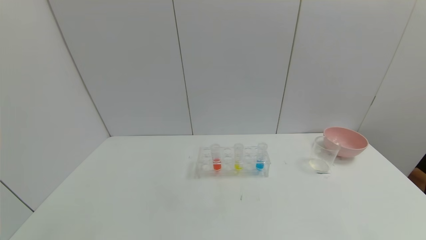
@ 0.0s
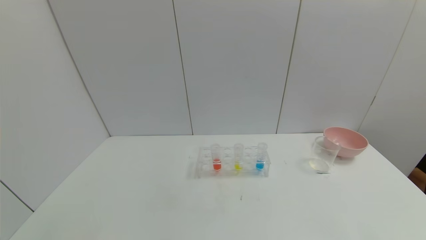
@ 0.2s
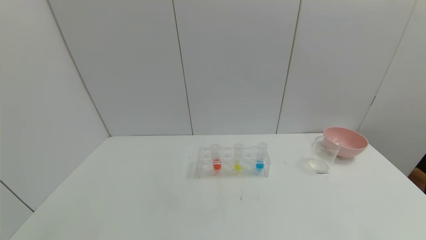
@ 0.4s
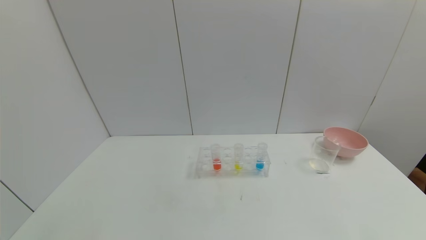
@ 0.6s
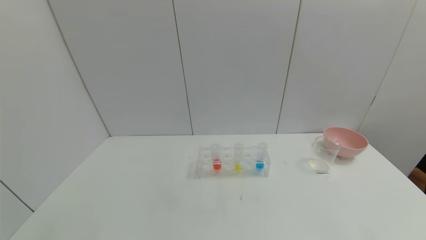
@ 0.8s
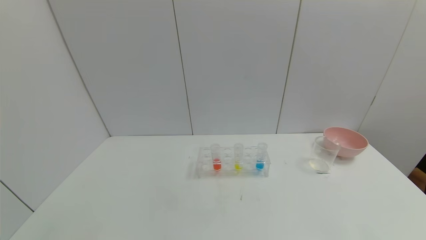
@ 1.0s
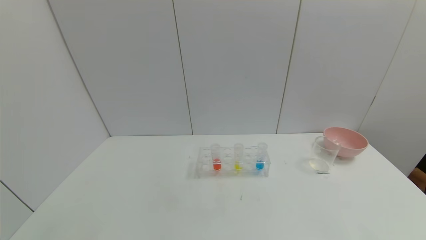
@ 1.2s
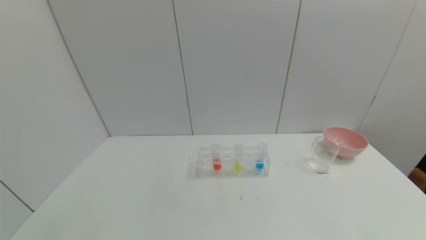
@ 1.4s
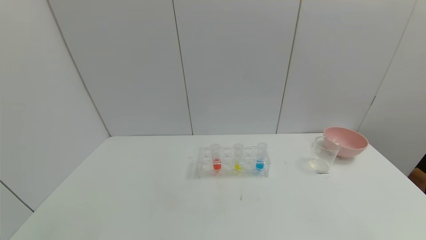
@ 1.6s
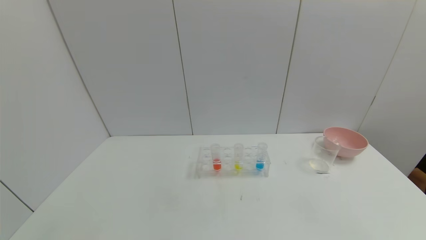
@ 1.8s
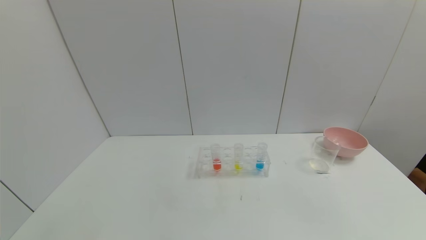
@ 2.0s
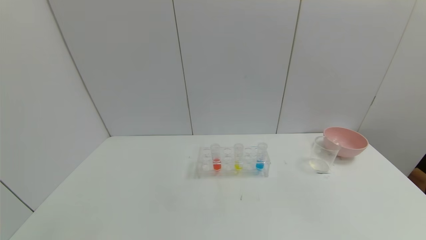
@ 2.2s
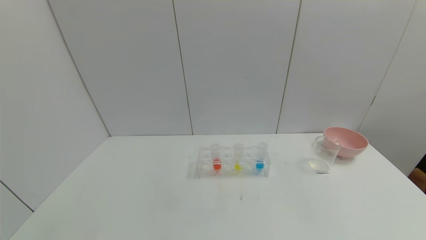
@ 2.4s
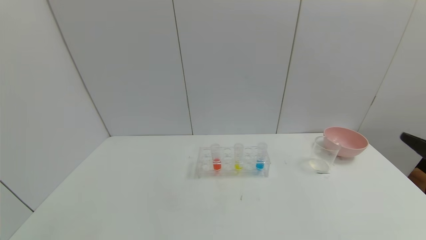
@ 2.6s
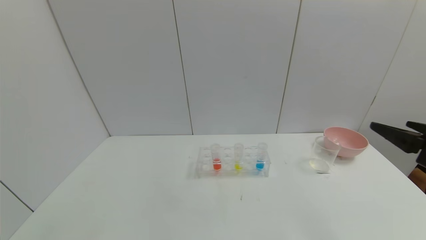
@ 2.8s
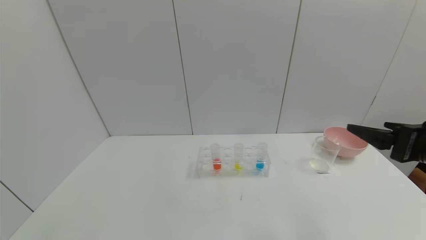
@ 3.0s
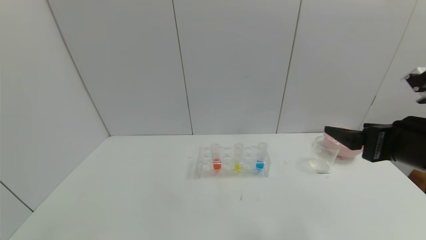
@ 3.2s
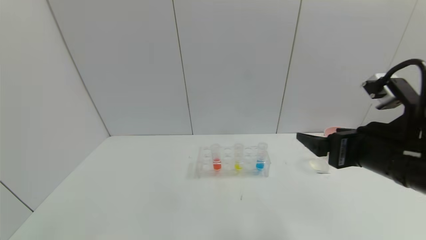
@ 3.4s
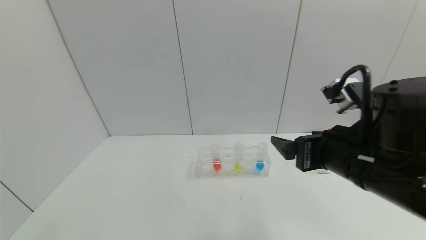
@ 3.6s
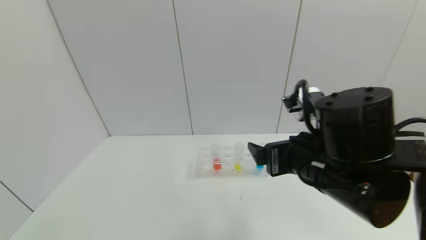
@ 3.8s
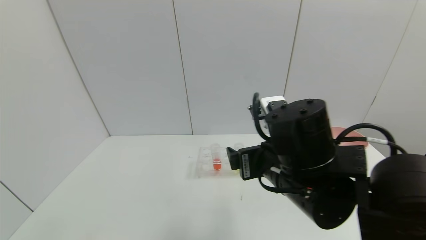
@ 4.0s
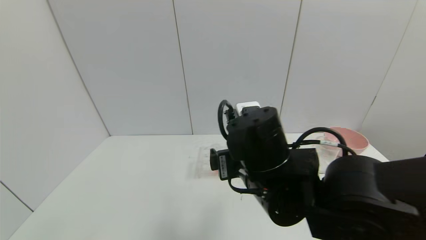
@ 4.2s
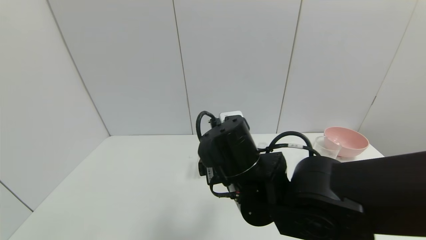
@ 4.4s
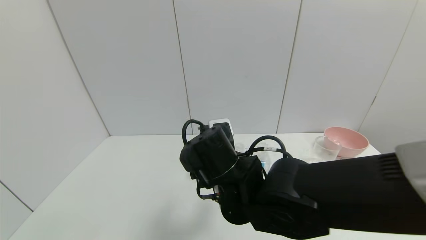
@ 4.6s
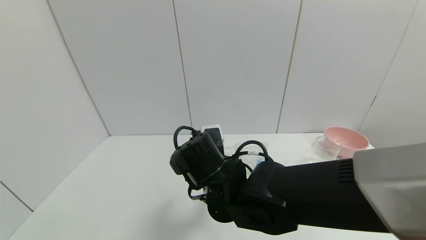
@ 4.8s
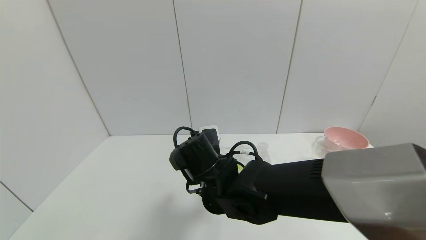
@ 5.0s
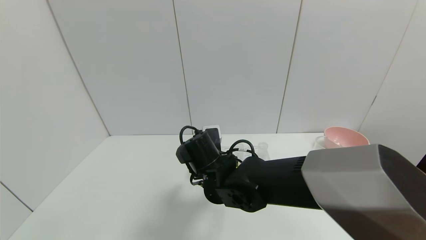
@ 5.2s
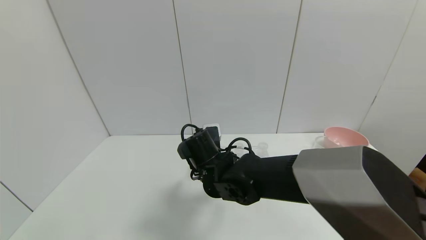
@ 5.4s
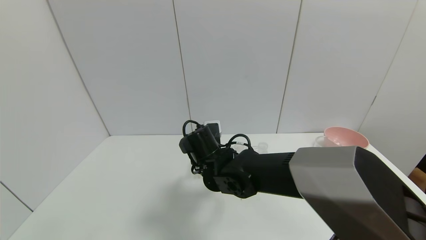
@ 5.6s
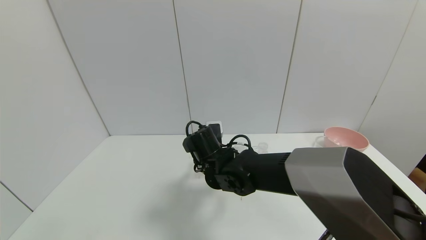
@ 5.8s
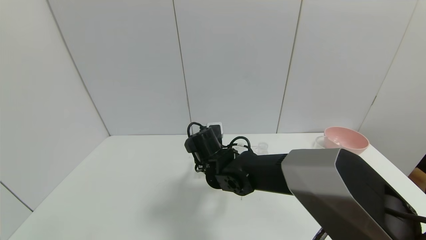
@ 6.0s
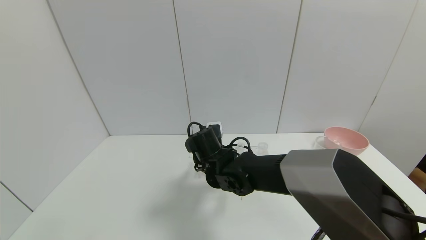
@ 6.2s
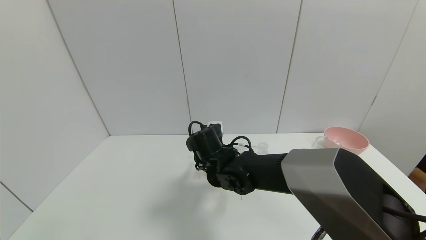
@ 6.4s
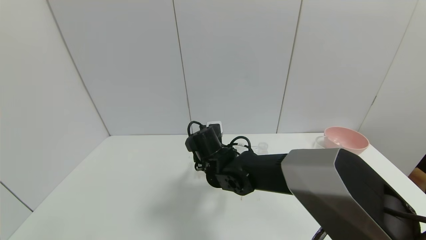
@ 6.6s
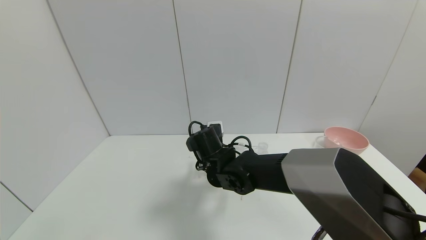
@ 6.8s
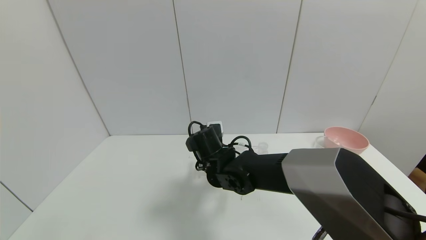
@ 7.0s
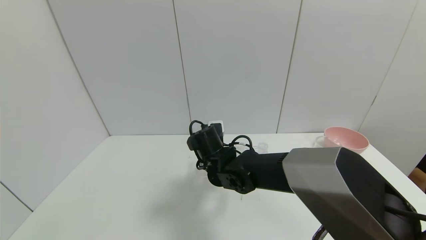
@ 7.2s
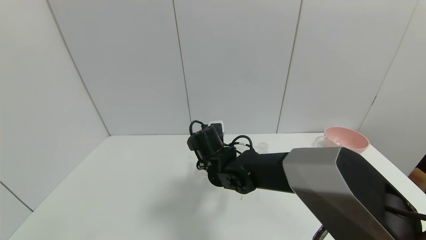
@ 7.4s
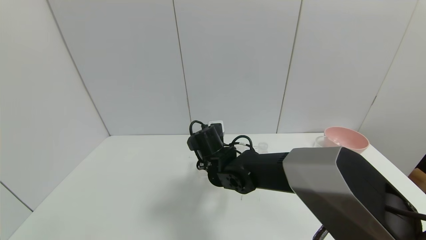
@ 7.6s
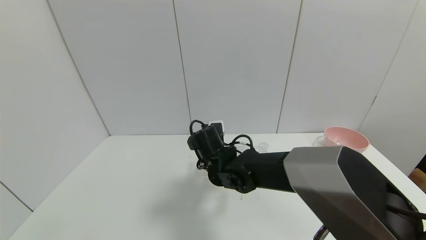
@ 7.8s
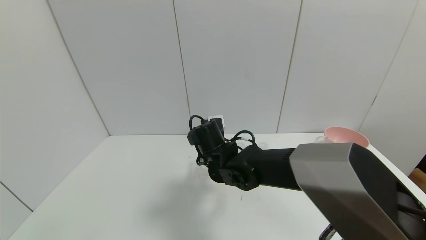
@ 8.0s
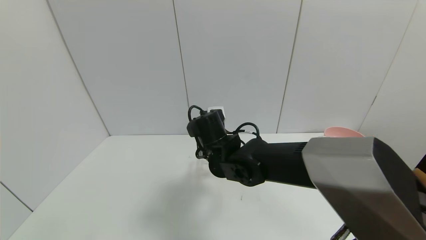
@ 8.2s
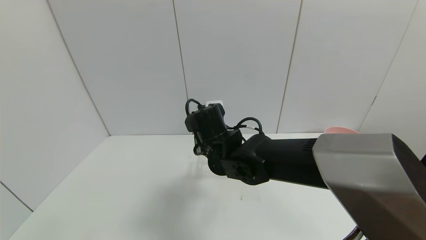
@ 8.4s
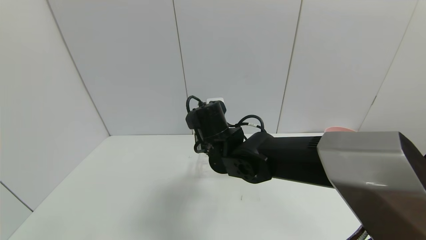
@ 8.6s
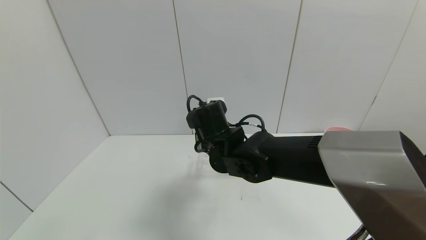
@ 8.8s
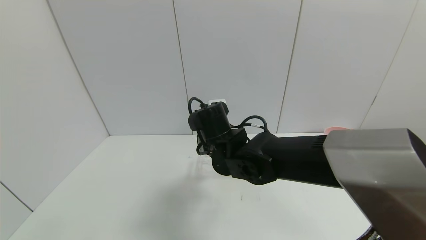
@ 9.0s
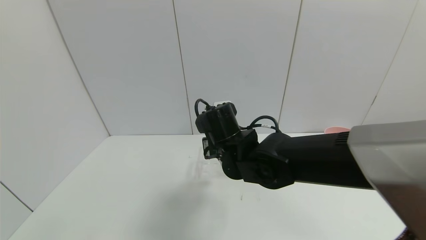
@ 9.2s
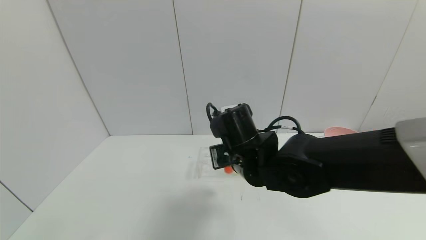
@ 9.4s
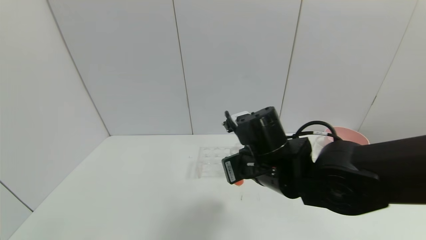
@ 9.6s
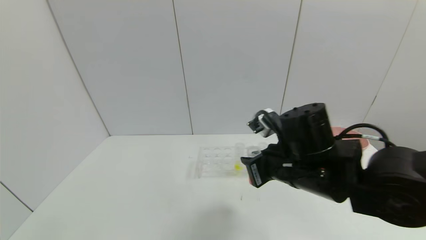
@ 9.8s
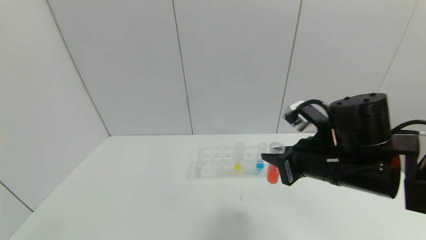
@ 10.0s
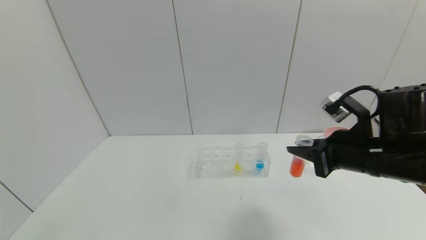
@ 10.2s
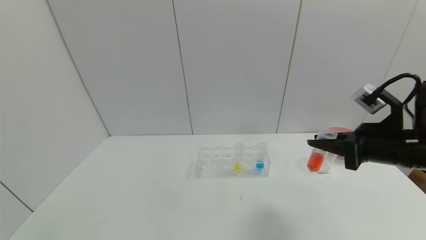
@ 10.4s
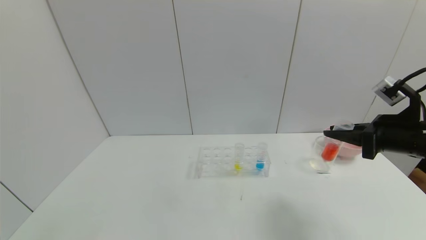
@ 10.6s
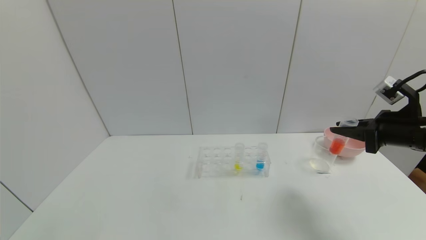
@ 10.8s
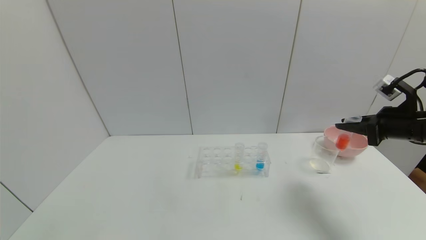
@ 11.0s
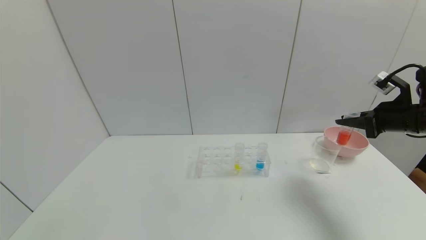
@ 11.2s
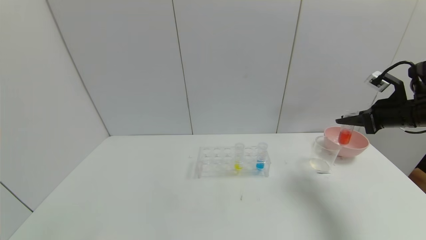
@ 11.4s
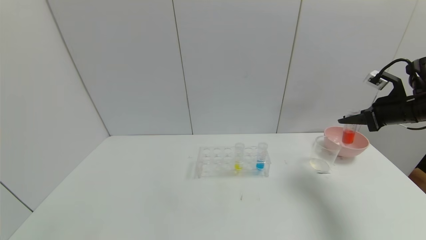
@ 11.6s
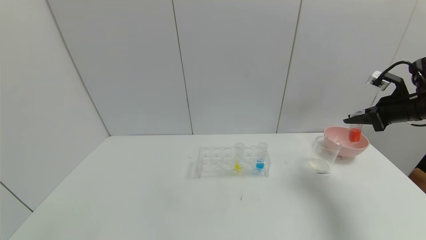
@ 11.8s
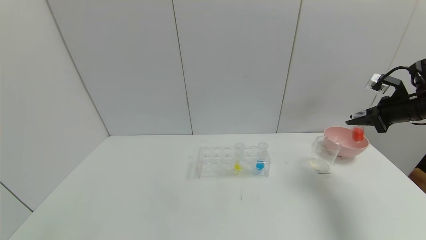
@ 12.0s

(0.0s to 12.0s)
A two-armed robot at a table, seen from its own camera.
Task of the whole recording: pick up the test tube with yellow pigment and the test tube with red pigment by grippers and pour them into the beaker.
Step, 0.0s - 7.8s: Grasp the red reagent with the right gripper.
1.6s - 3.0s: The right gripper heads forward and upward, covering about 25 cm.
3.0s - 4.4s: The right gripper travels to the left by approximately 30 cm.
4.4s - 6.0s: The right gripper heads forward and downward, covering approximately 15 cm.
6.0s - 7.6s: The right gripper closes up.
7.6s - 9.0s: The right gripper travels upward by about 5 cm.
9.0s - 10.4s: The right gripper travels to the right by about 30 cm.
10.4s - 12.0s: The right gripper heads to the right and forward, covering approximately 20 cm.

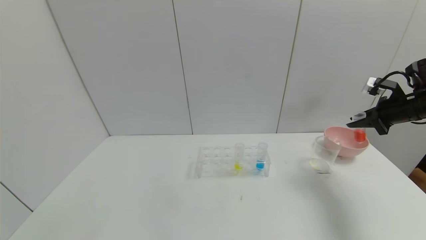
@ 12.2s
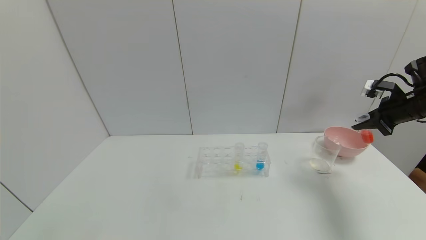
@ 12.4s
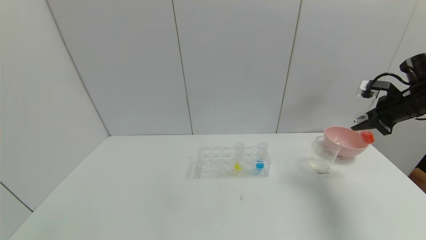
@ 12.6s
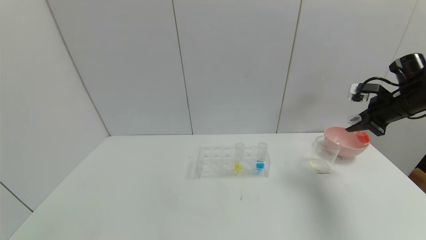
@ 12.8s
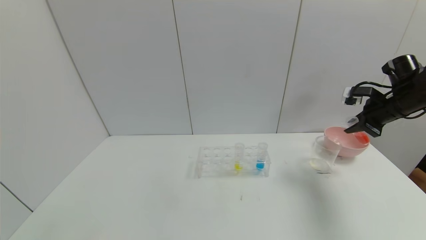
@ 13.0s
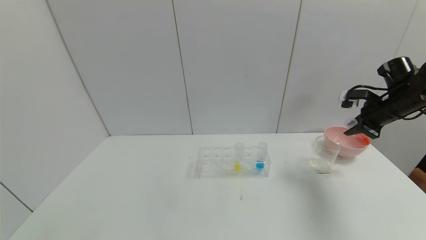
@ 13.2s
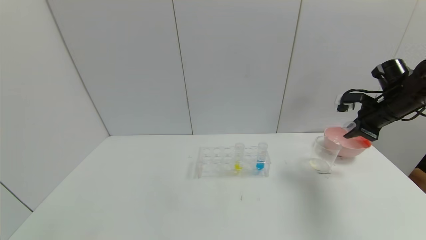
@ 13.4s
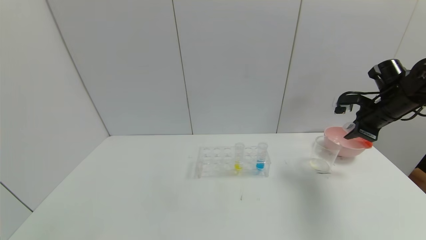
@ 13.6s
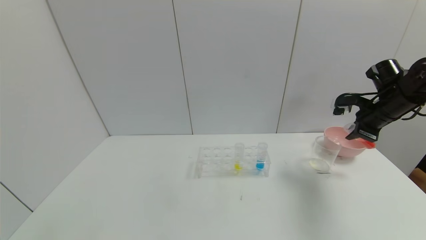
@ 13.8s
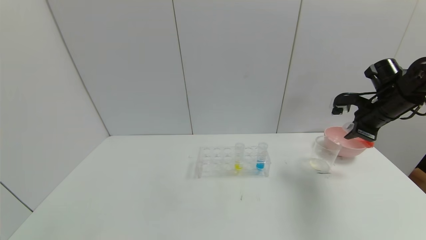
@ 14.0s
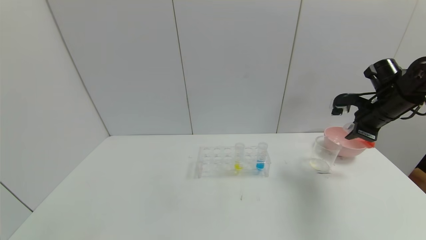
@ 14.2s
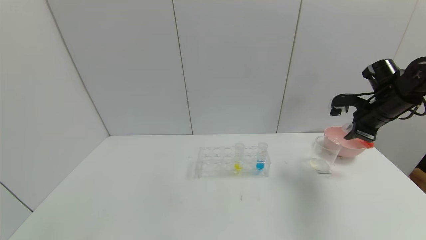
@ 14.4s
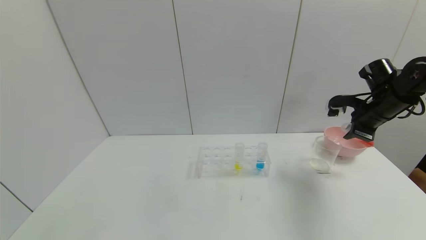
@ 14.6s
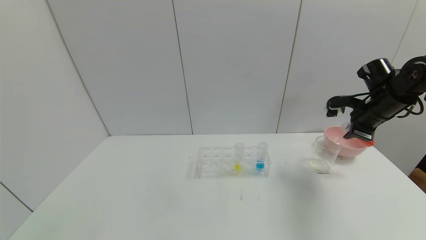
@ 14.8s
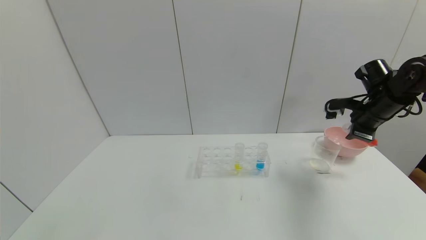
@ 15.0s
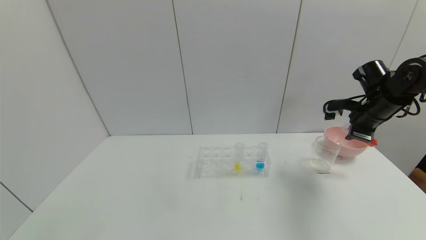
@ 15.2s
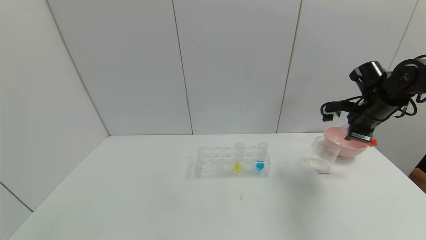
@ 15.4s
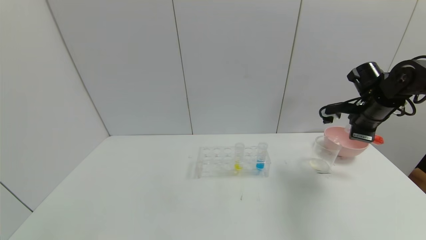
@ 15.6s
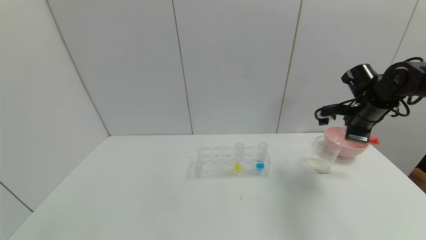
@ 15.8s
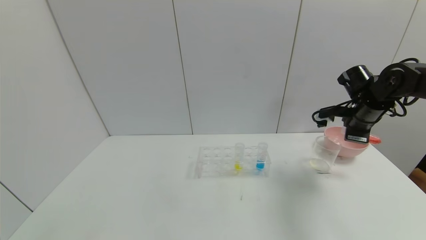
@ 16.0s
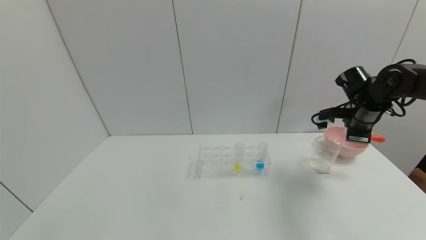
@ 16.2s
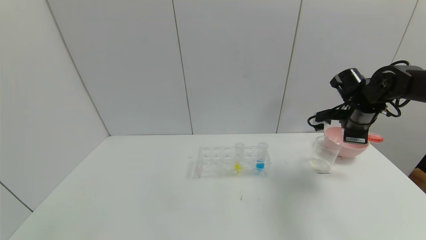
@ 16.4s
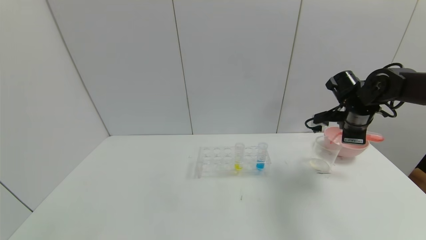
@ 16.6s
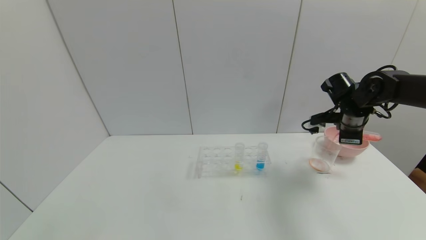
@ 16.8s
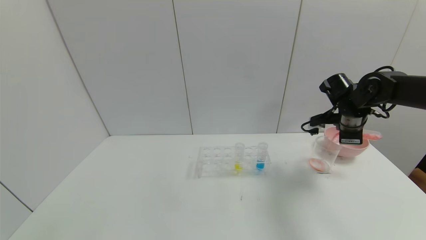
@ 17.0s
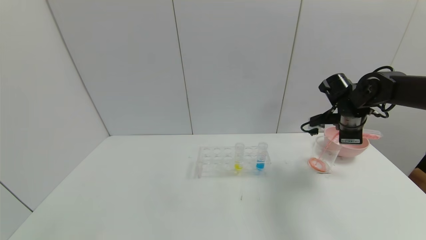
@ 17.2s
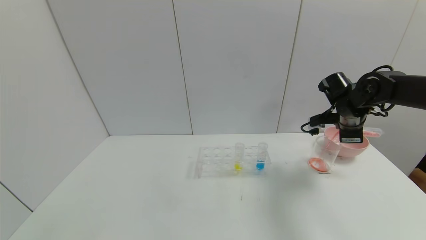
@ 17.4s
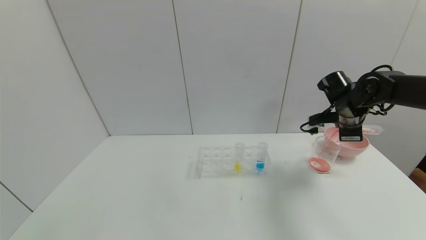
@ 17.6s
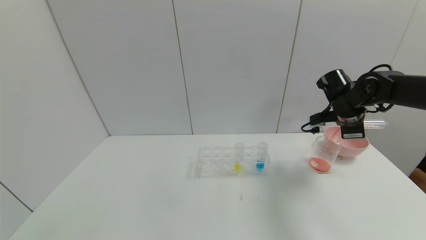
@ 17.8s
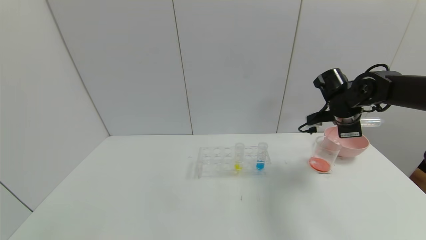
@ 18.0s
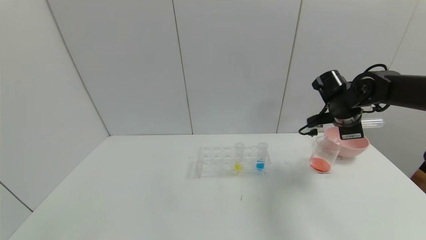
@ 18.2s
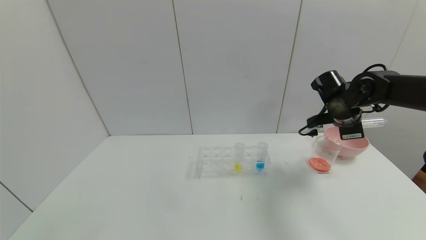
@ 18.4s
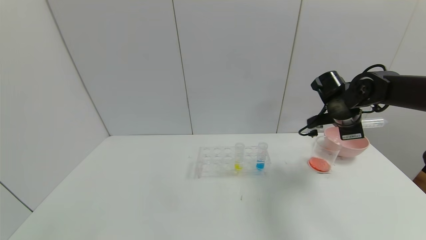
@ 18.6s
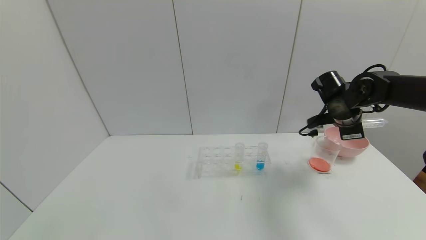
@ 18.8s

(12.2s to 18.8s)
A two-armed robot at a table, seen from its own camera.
Task of the whole recording: pick up the test tube with yellow pigment and the test tube with red pigment by grippers and pour them into the beaker.
12.2s - 13.8s: The right gripper heads to the left, covering roughly 5 cm.
13.8s - 15.4s: The grippers stay close to where they were, moving slightly.
15.4s - 17.2s: The right gripper moves roughly 5 cm.
17.2s - 18.8s: The grippers stay close to where they were, moving slightly.
